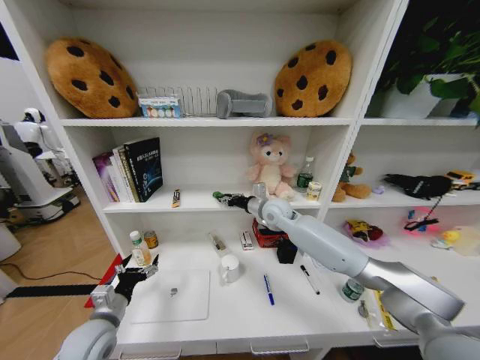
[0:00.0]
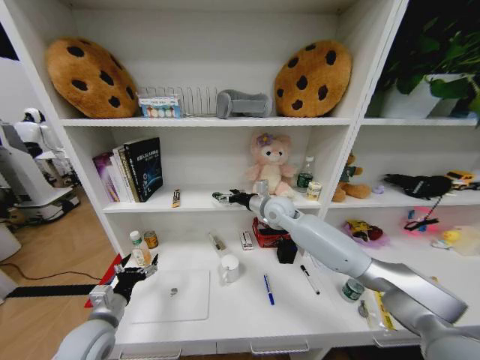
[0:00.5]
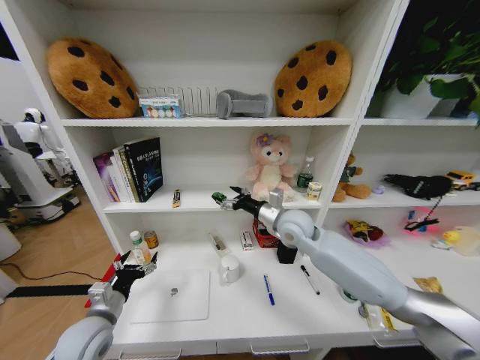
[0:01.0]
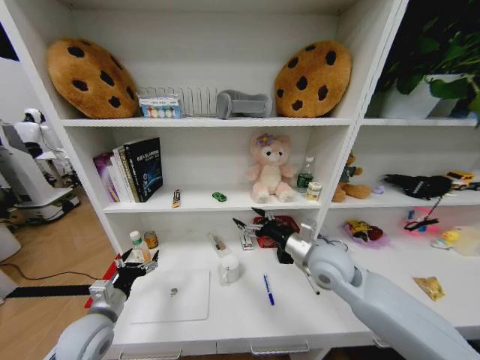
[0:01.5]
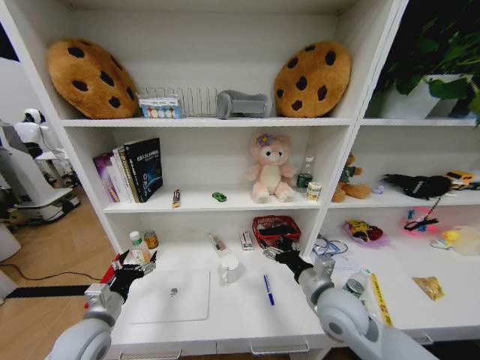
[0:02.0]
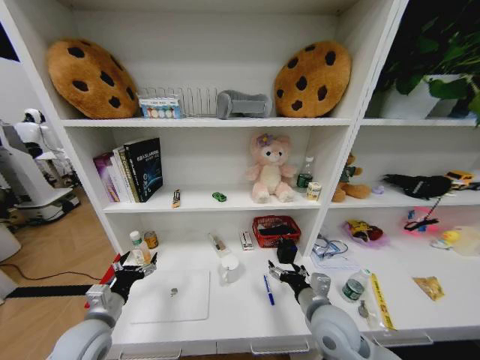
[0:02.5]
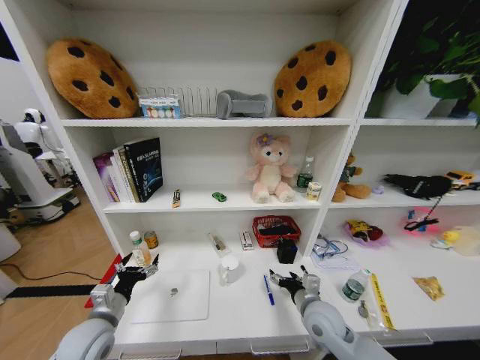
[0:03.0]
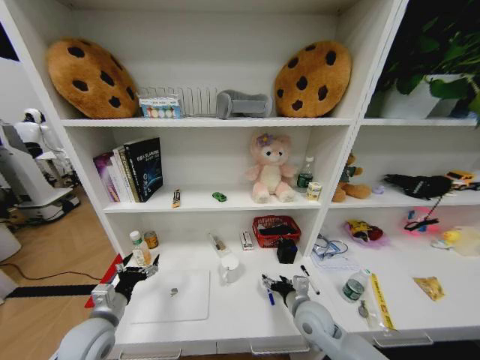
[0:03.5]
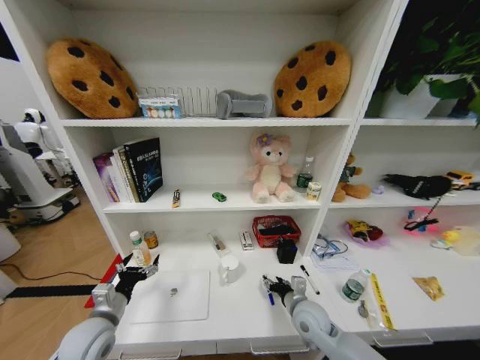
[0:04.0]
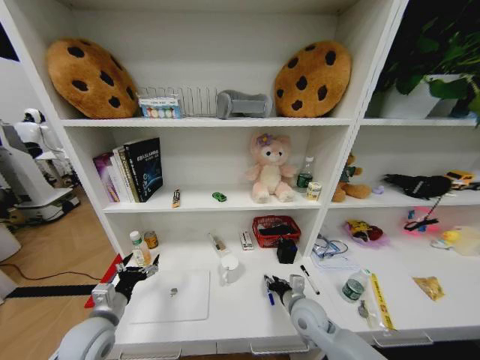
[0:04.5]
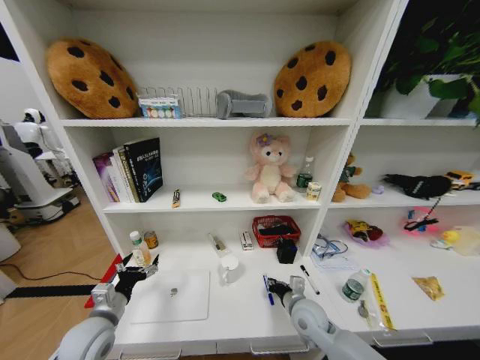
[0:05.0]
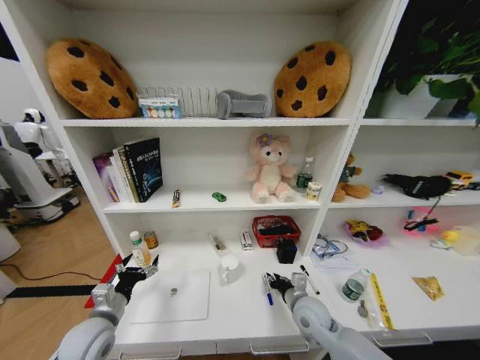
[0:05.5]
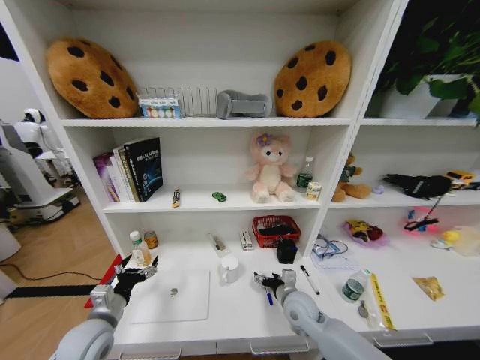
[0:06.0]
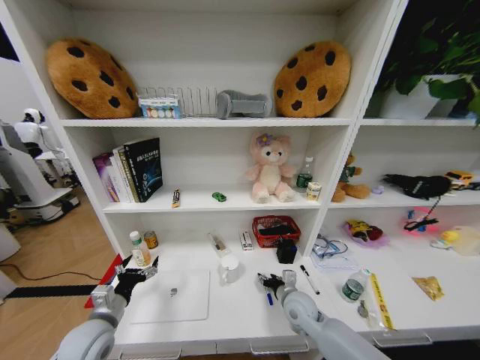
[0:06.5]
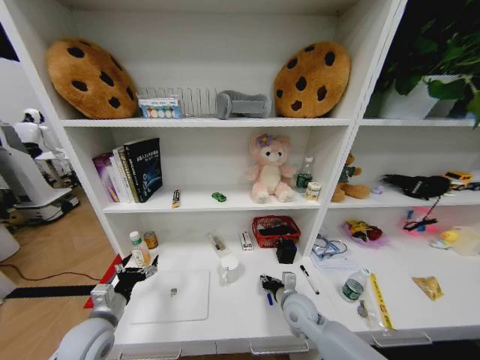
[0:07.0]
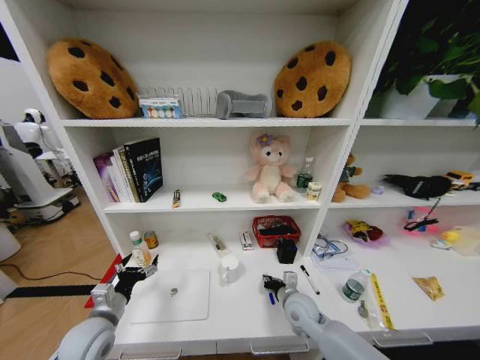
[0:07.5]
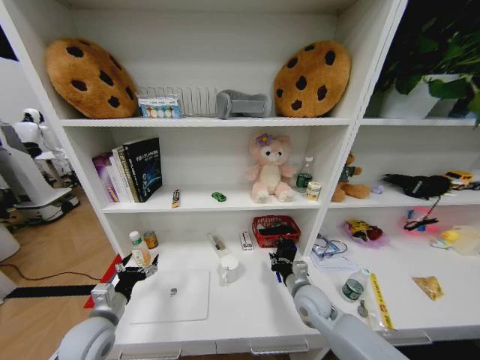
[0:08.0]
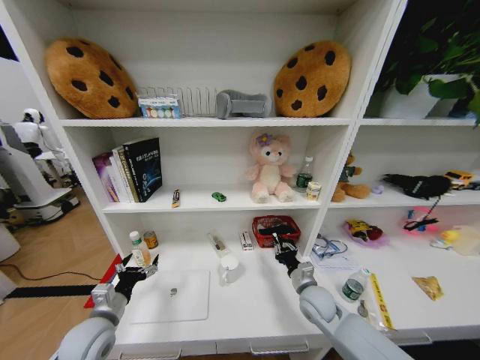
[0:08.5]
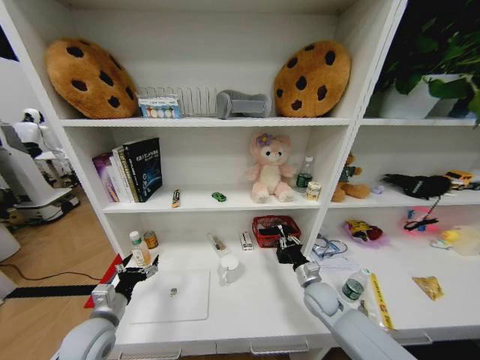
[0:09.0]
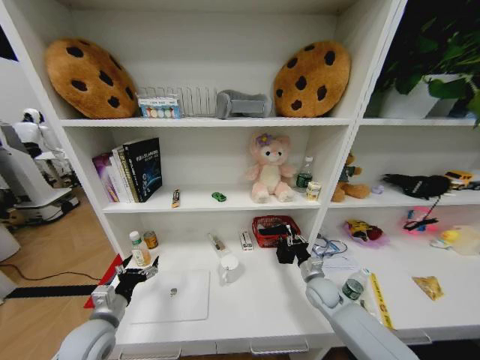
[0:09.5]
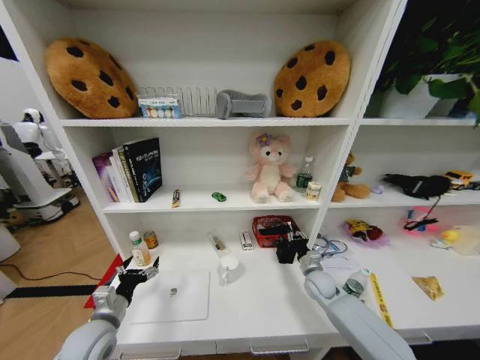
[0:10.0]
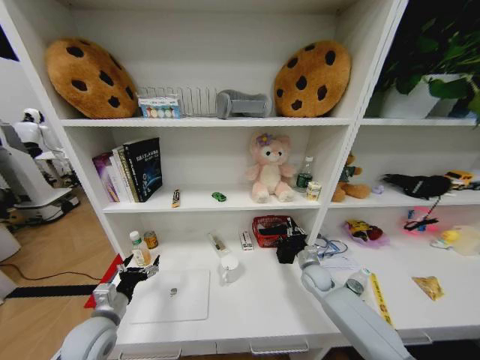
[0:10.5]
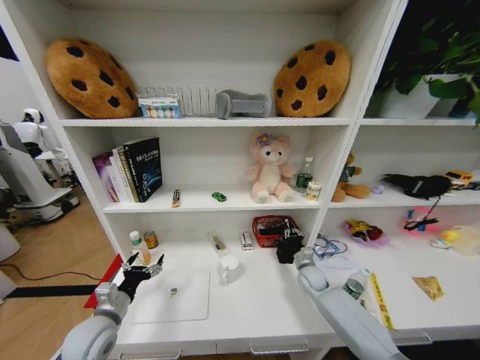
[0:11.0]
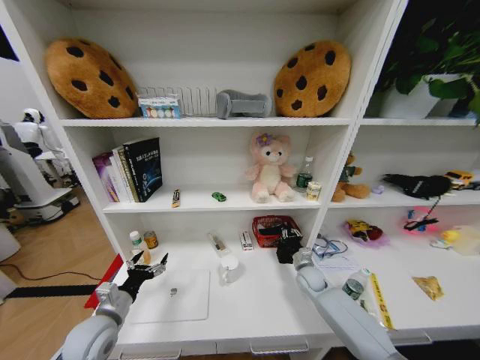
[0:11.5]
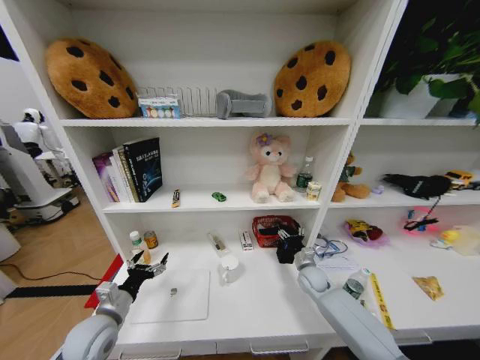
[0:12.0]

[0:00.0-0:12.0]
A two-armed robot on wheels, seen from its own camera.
Task of the whole recording: Organize the objects on the table.
0:00.0 to 0:02.0: The right gripper shifts some 25 cm backward, and opens its fingers.
0:02.0 to 0:04.0: The right gripper shifts about 15 cm downward.
0:04.0 to 0:06.0: The right gripper closes, then opens again.
0:06.0 to 0:08.0: The right gripper closes.
0:08.0 to 0:10.0: The right gripper is displaced to the right and forward by some 10 cm.
0:10.0 to 0:12.0: The right gripper opens up.

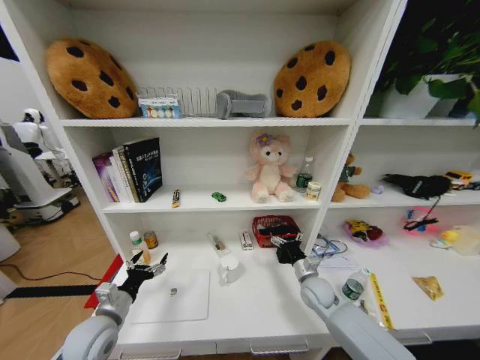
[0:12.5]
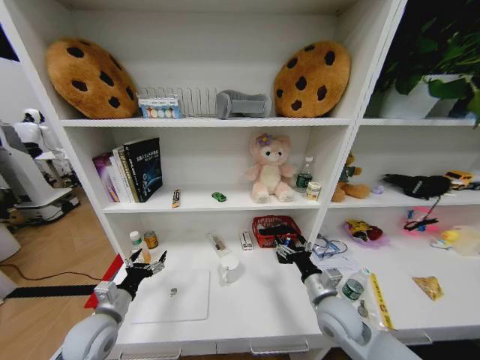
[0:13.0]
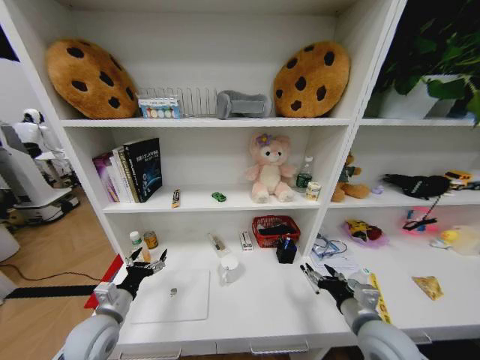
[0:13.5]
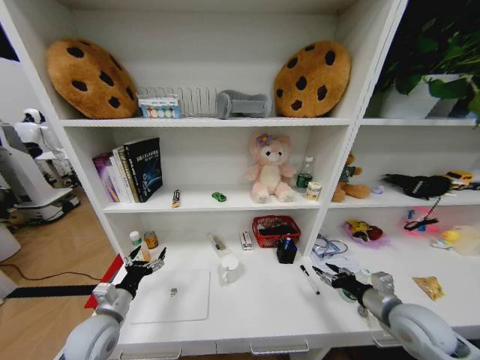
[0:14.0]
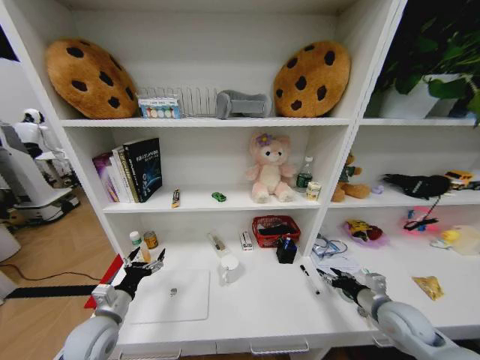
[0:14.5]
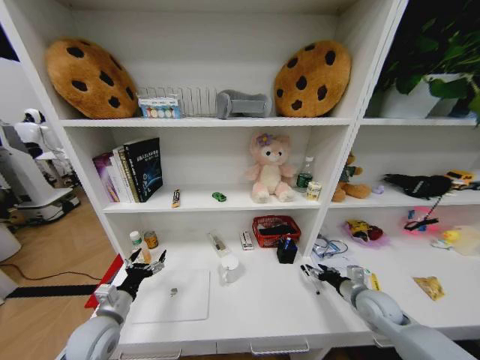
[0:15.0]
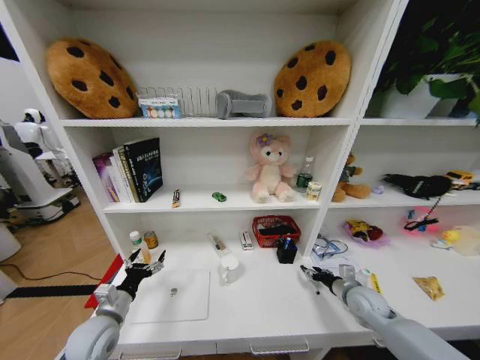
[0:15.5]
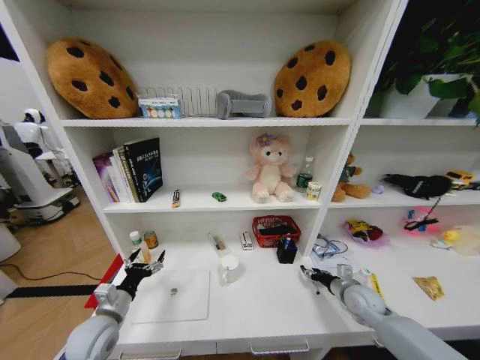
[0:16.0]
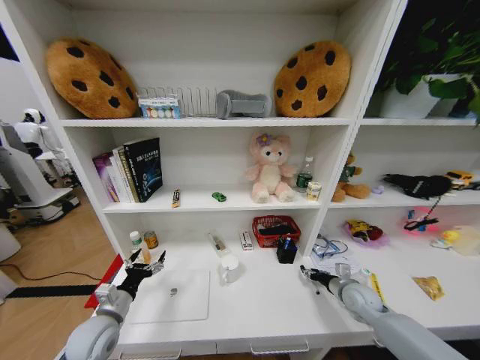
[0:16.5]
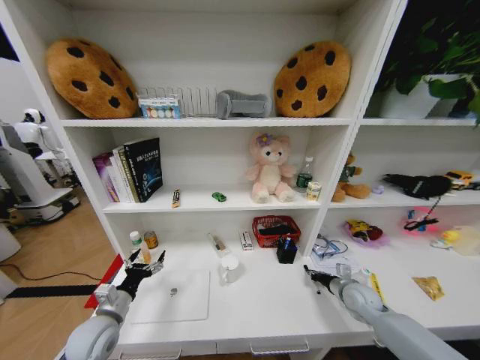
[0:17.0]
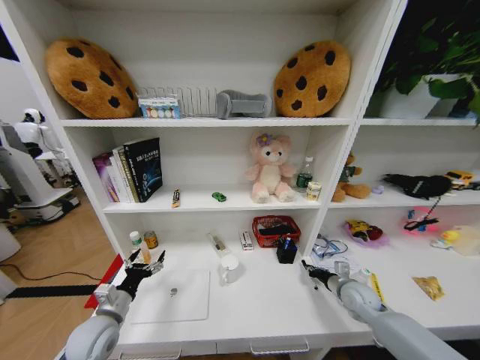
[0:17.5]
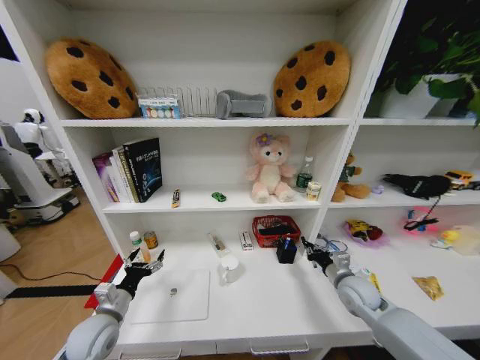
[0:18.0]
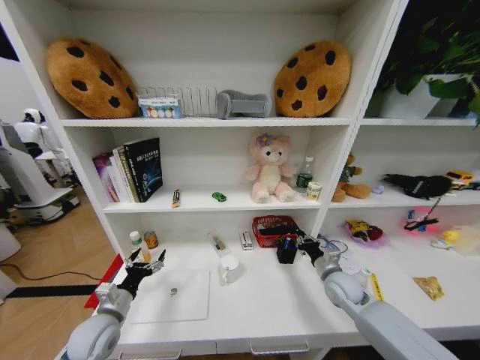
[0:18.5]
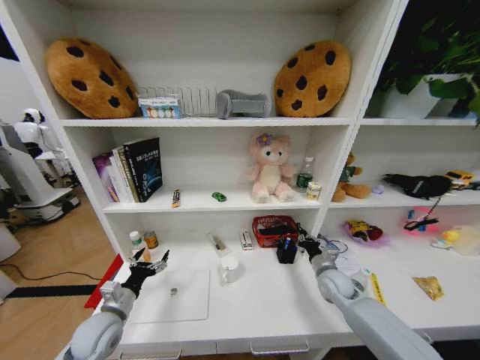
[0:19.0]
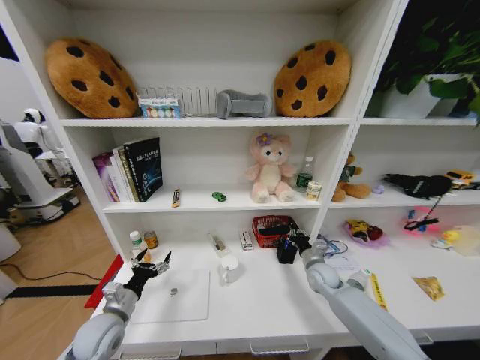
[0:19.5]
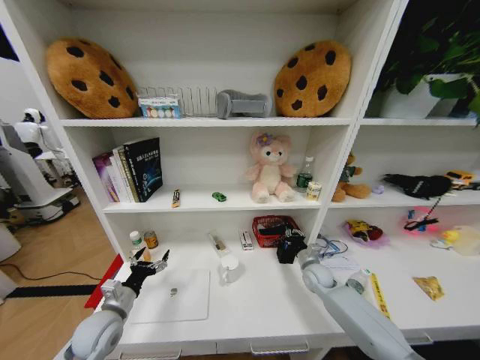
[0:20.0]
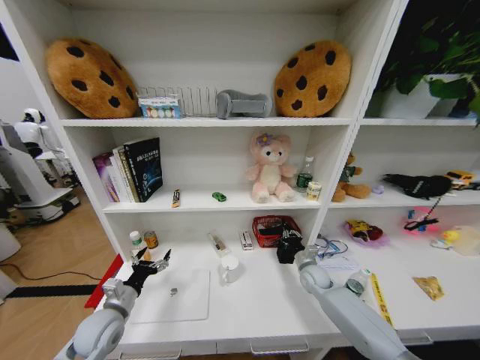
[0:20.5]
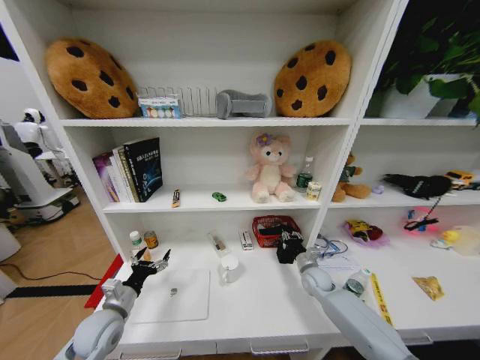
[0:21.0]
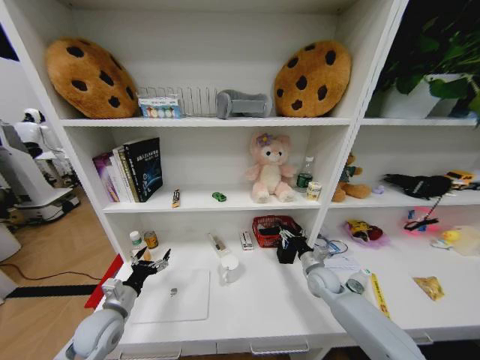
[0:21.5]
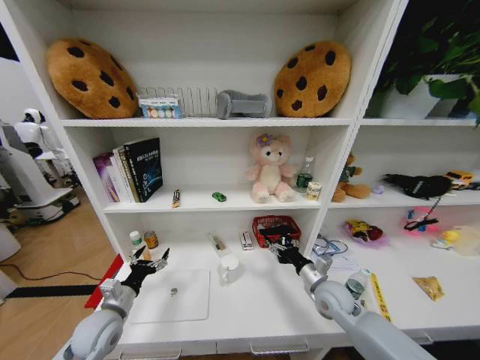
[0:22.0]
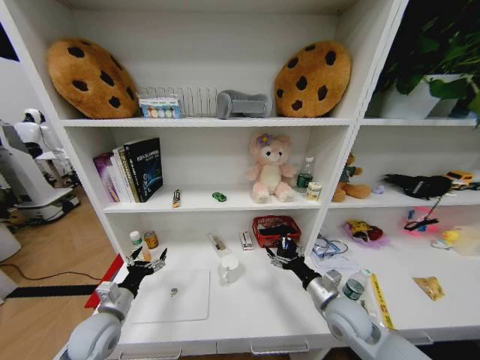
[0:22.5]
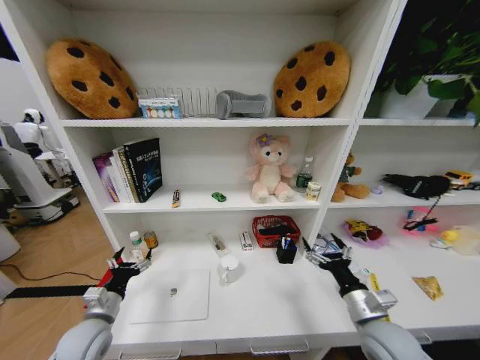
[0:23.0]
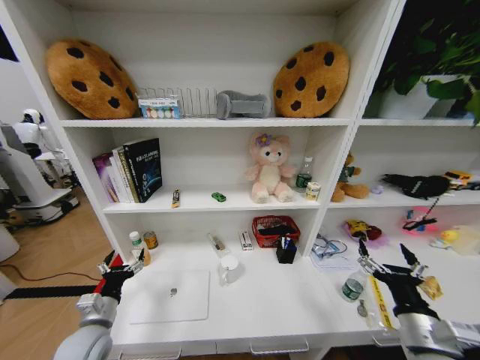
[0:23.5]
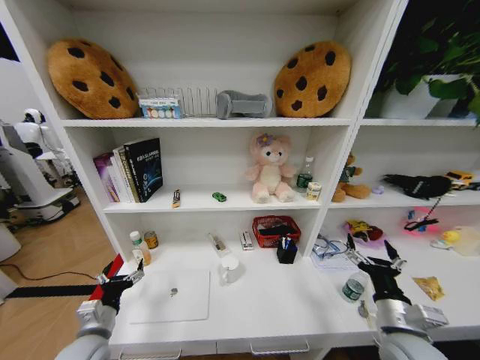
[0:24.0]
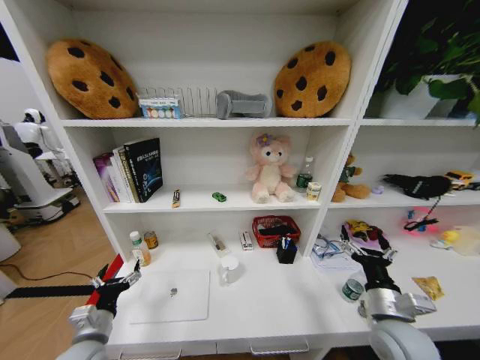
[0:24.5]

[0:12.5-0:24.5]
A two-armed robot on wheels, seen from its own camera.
Task of the whole recording: Organize the objects on the table.
0:12.5 to 0:14.5: The right gripper heads to the right and backward, covering some 20 cm, and closes.
0:14.5 to 0:16.5: The right gripper shifts some 10 cm forward and downward.
0:16.5 to 0:18.5: The right gripper goes approximately 5 cm to the left, and closes its fingers.
0:18.5 to 0:20.5: The right gripper heads downward and forward, covering approximately 10 cm.
0:20.5 to 0:22.5: The right gripper is displaced backward and upward by some 20 cm, and opens its fingers.
0:22.5 to 0:24.5: The right gripper is displaced backward and to the right by about 10 cm, while the left gripper heads backward, covering about 5 cm.

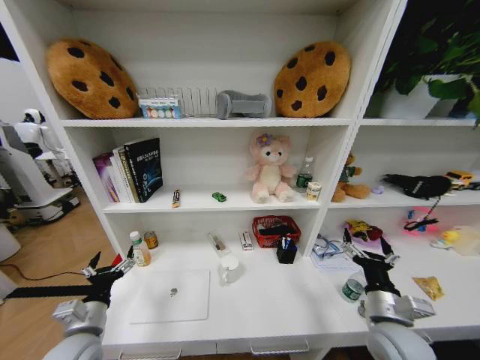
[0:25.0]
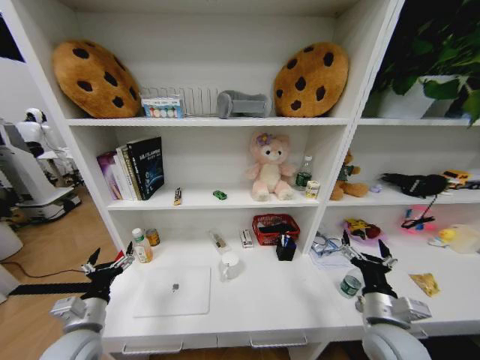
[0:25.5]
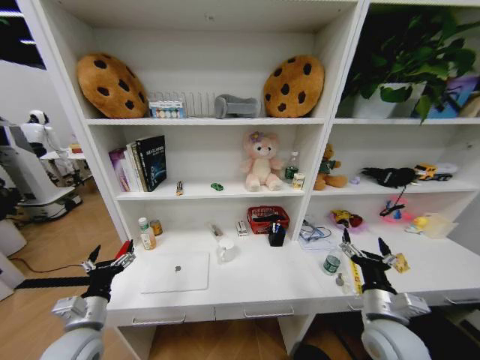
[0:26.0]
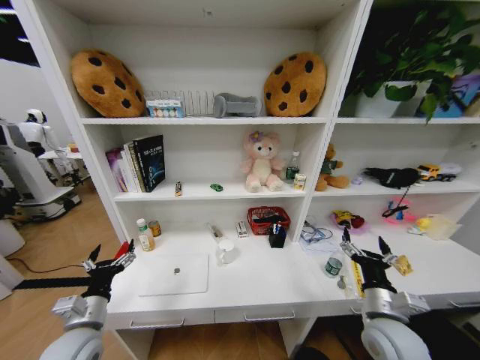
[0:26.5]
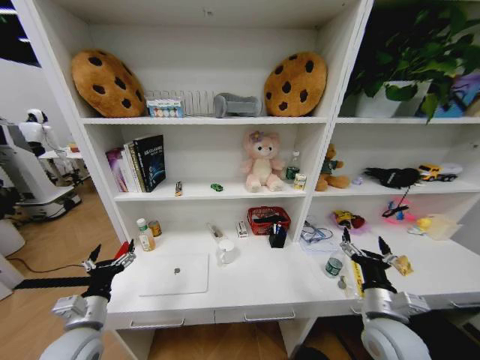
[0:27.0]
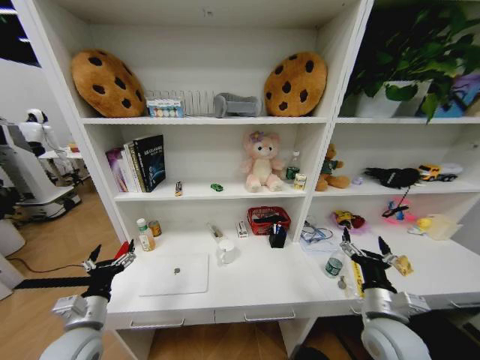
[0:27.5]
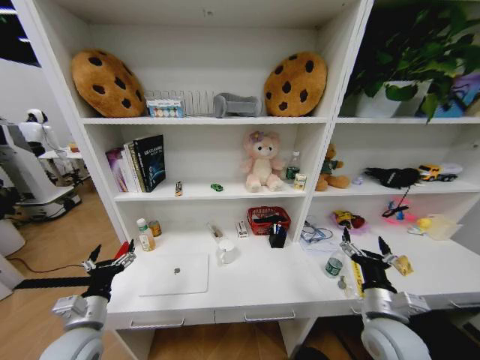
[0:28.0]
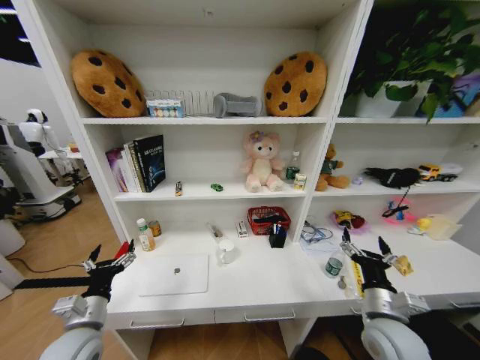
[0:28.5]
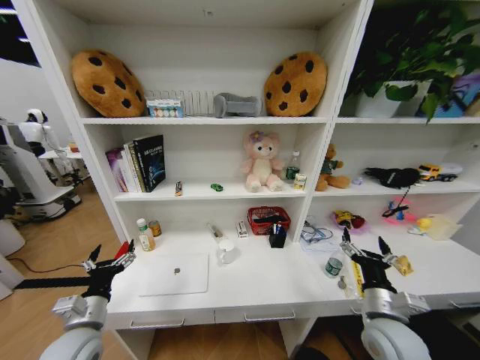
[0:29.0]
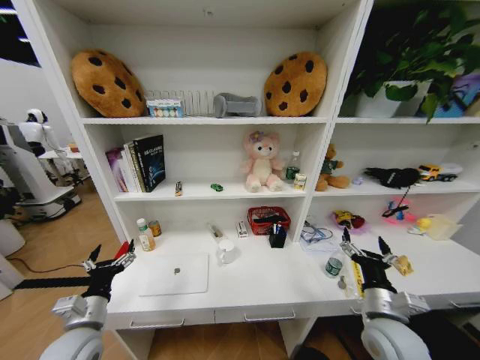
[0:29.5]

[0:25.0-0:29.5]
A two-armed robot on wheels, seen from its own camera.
Task of the whole recording: Organize the objects on the table.
0:27.0 to 0:29.5: Both grippers stay put.
